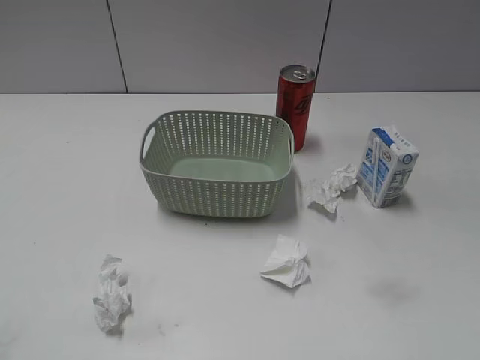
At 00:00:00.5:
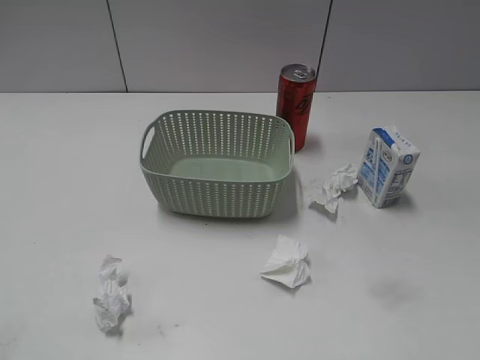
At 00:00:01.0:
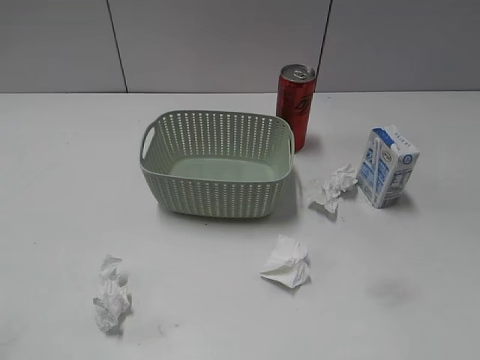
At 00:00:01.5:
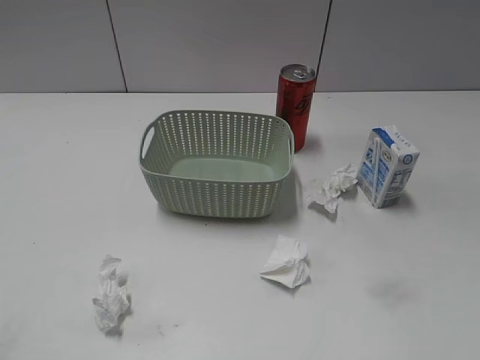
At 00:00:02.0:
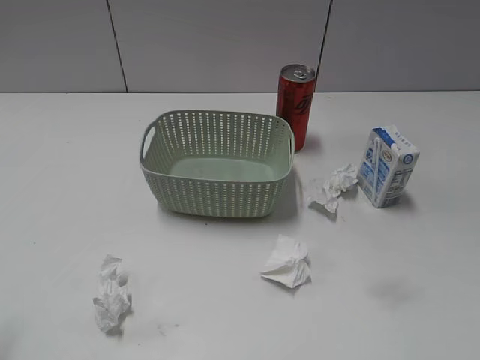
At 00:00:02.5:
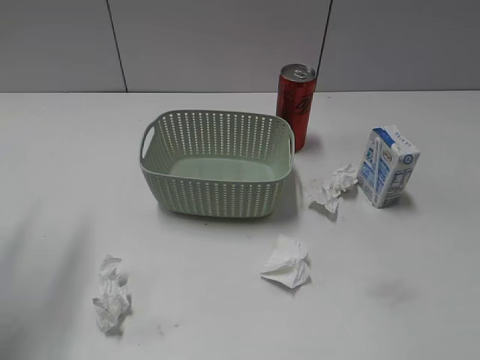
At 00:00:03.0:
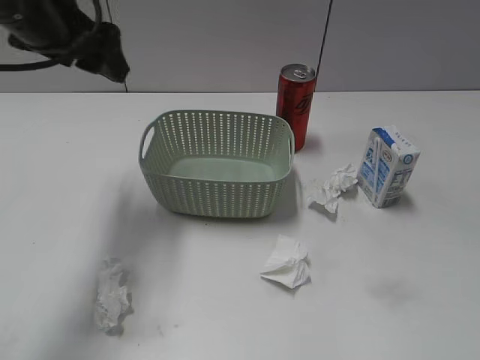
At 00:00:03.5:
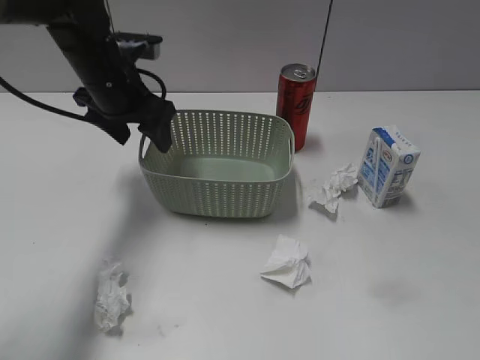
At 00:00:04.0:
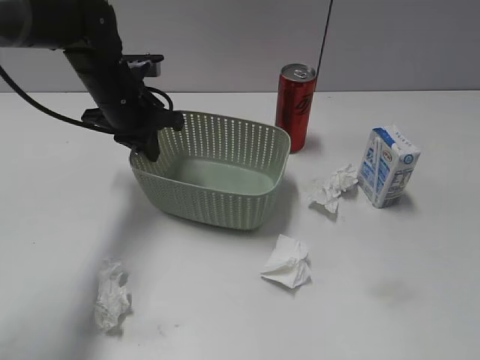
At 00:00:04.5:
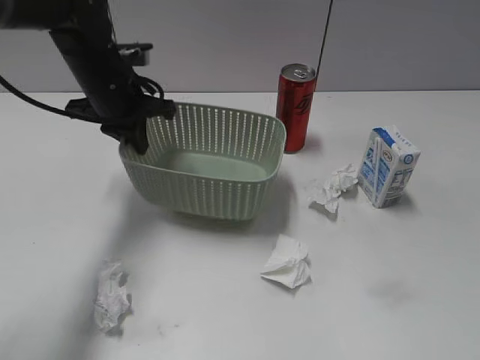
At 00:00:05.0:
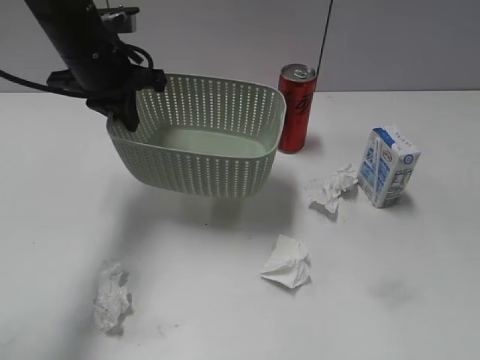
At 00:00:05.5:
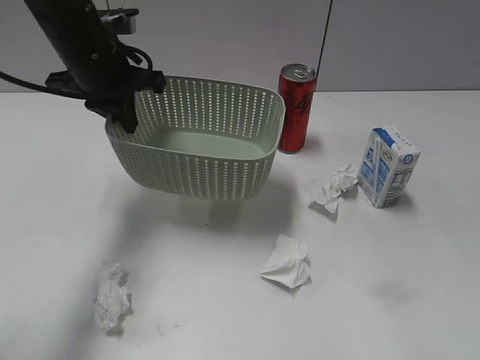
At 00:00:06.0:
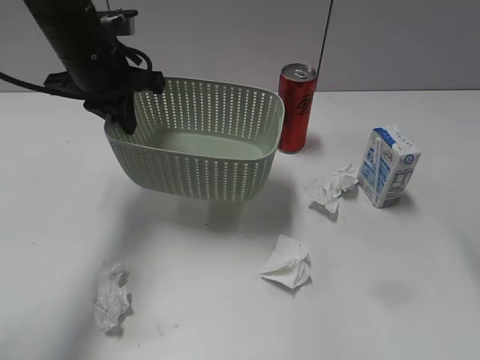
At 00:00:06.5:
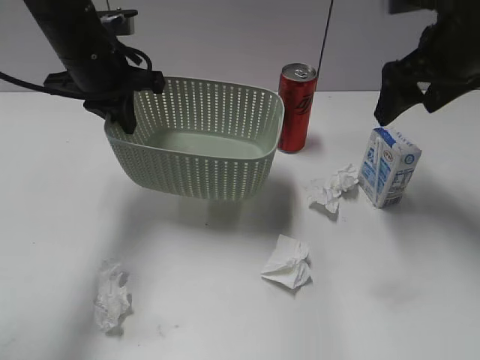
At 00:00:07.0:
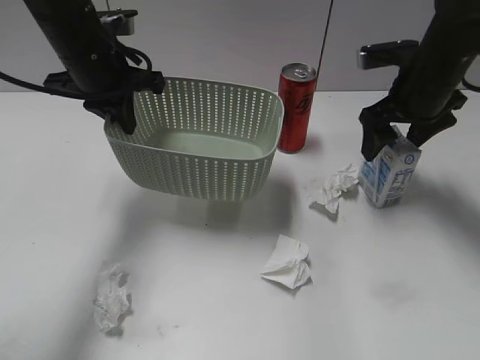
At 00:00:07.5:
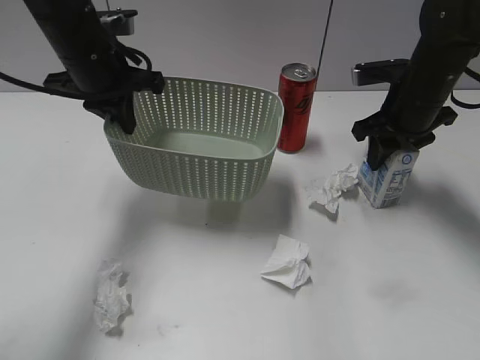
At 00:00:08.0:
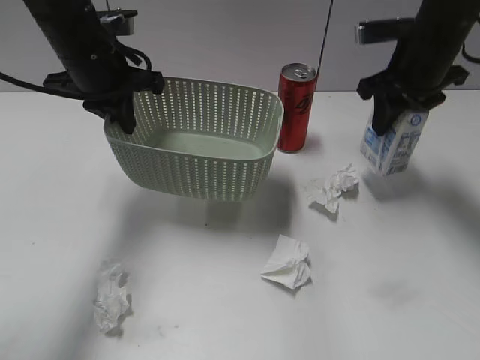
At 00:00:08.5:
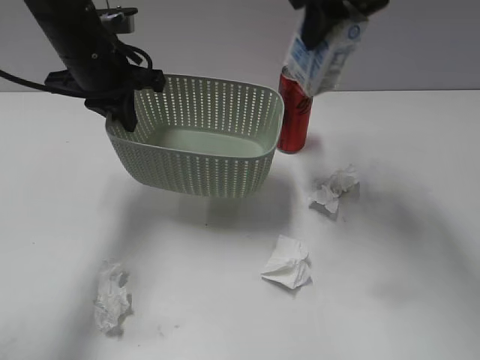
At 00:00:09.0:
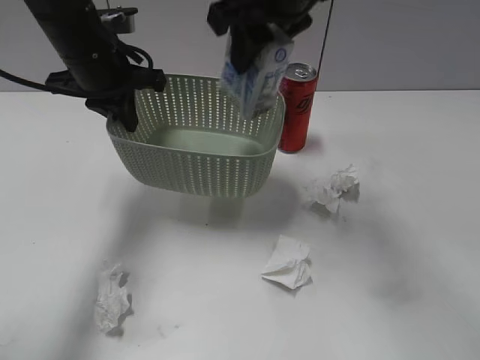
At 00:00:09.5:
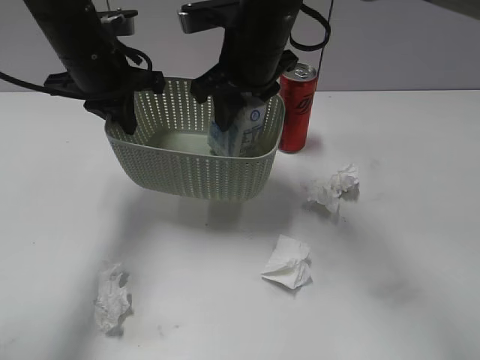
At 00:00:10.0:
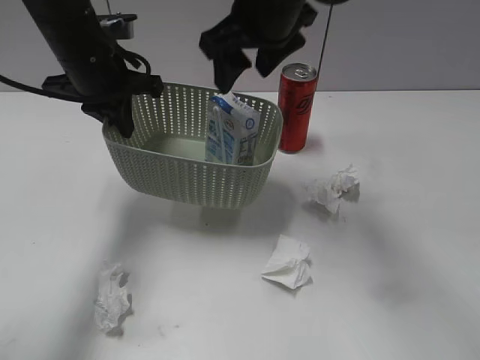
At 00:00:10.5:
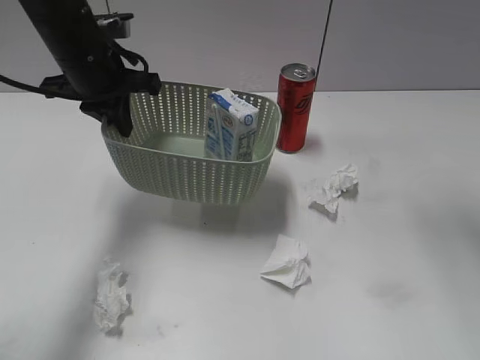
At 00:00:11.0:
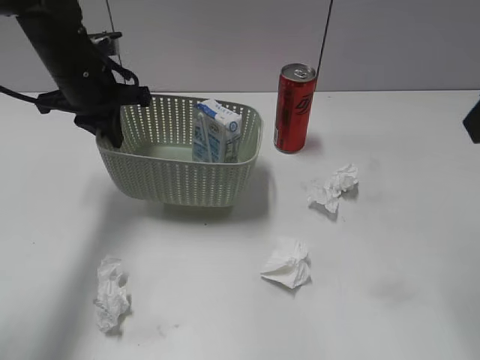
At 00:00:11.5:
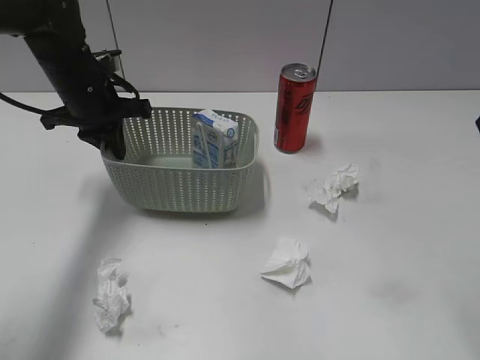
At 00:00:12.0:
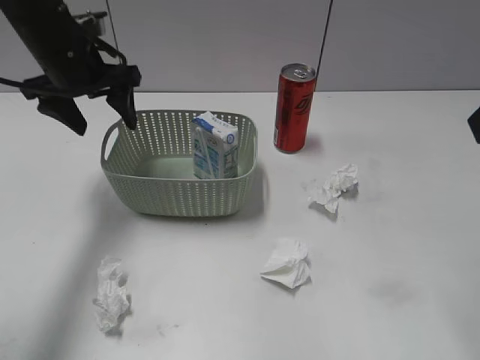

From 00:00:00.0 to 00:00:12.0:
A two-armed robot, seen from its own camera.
Step, from 00:00:03.0 to 00:00:04.0: Grasp the basket with left gripper.
Step, from 00:00:05.0 to 00:00:07.5: Grasp the milk with right gripper.
Step, from 00:00:08.0 to 00:00:10.0: Place the milk in the basket with right gripper.
From 00:00:02.0 to 00:00:04.0: The left gripper moves forward and to the right, some 40 cm, and closes its fingers.
From 00:00:04.0 to 00:00:06.0: The left gripper travels upward by roughly 5 cm, while the right gripper is displaced forward by some 20 cm.
From 00:00:06.0 to 00:00:08.0: The right gripper heads forward and downward, covering about 30 cm, and closes up.
From 00:00:08.0 to 00:00:10.0: The right gripper shifts some 20 cm to the left, and opens up.
From 00:00:10.0 to 00:00:12.0: The left gripper opens; the right gripper moves to the right, backward and upward, about 30 cm.

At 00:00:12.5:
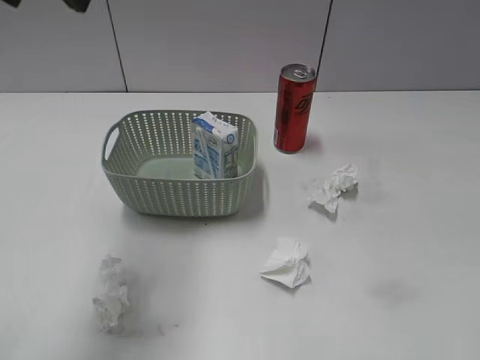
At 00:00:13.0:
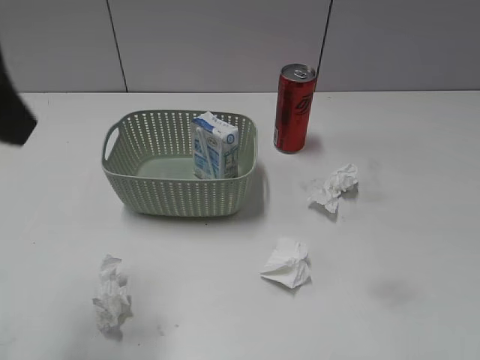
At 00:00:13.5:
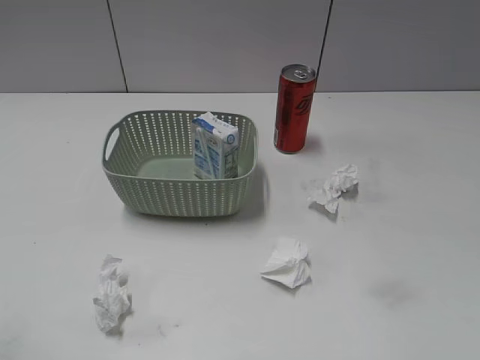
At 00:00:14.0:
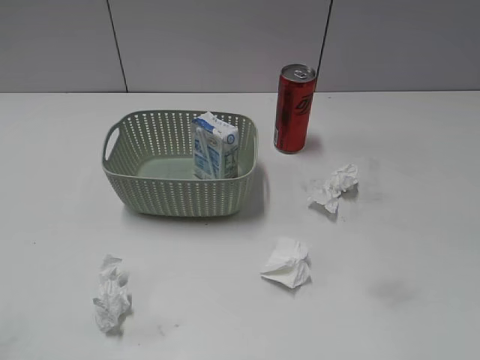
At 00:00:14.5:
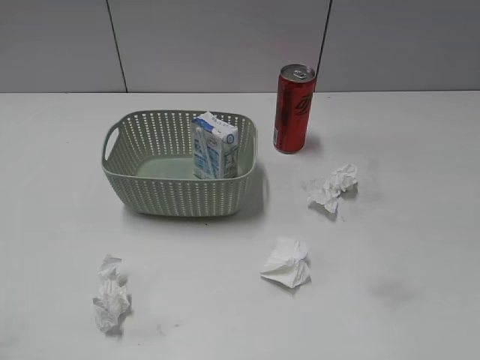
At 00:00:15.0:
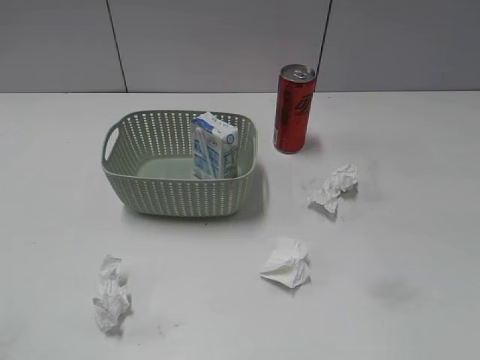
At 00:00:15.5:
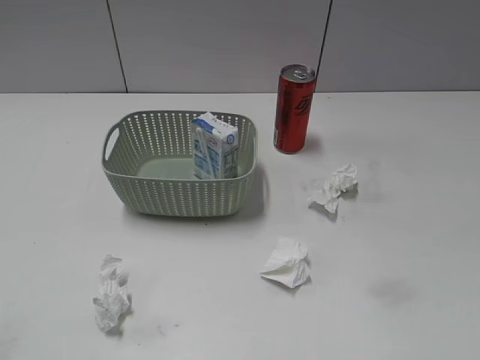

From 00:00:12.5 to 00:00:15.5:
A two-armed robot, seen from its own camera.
From 00:00:12.5 to 00:00:14.0: The left gripper moves backward and downward, about 30 cm. The right gripper heads backward and downward, covering approximately 15 cm.
